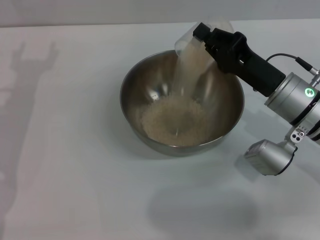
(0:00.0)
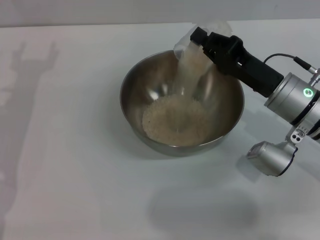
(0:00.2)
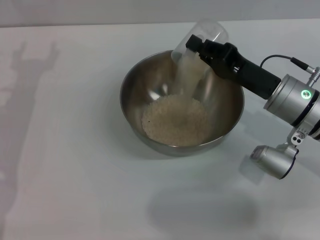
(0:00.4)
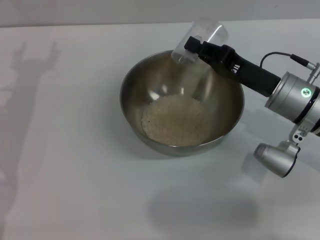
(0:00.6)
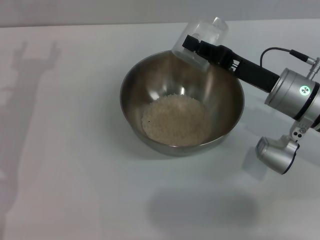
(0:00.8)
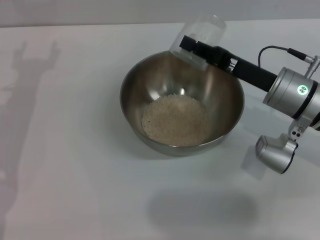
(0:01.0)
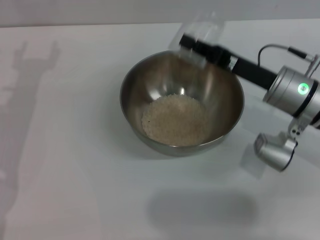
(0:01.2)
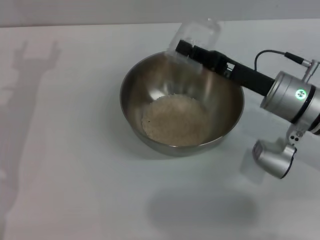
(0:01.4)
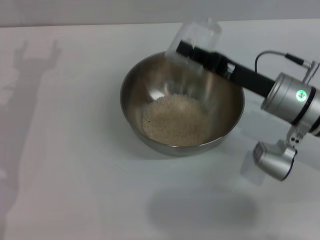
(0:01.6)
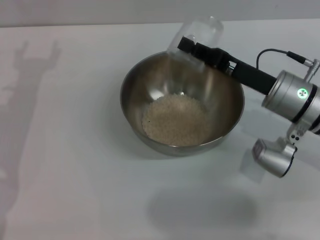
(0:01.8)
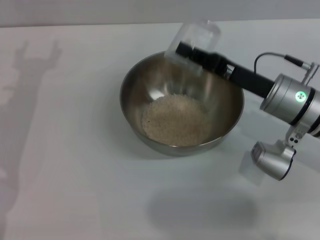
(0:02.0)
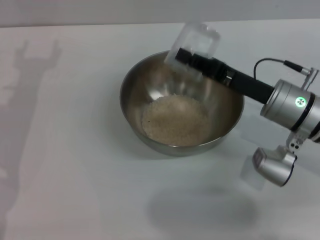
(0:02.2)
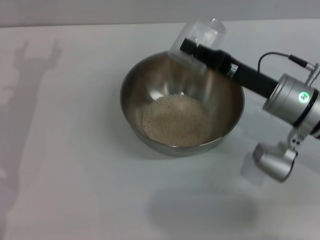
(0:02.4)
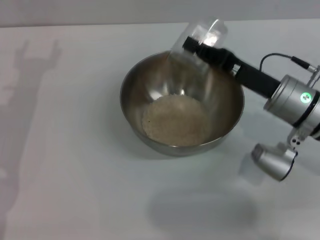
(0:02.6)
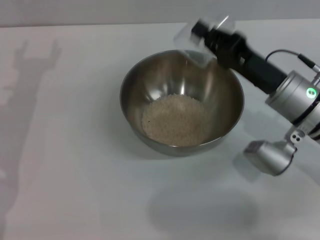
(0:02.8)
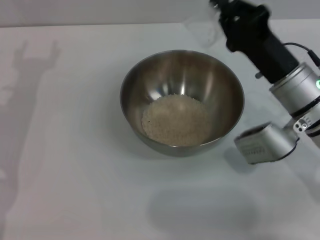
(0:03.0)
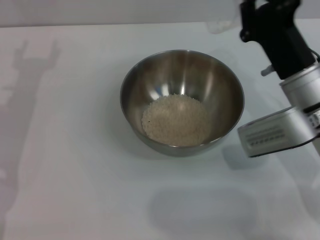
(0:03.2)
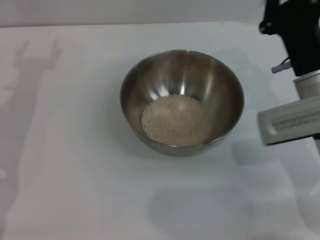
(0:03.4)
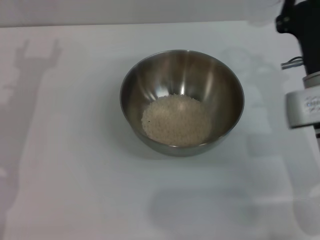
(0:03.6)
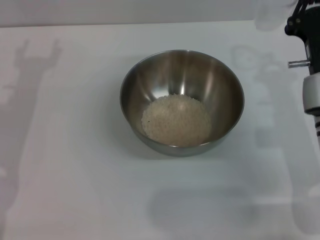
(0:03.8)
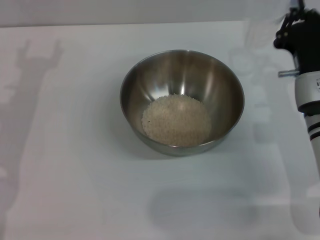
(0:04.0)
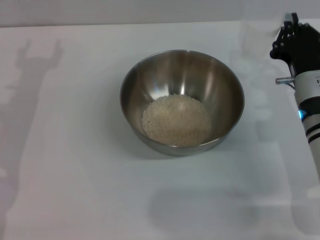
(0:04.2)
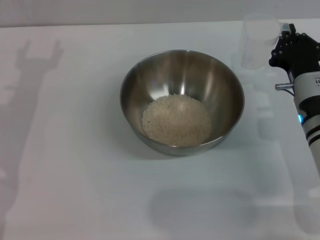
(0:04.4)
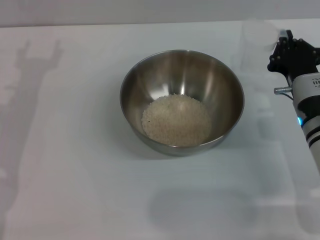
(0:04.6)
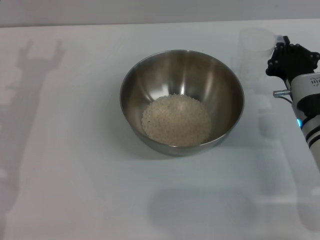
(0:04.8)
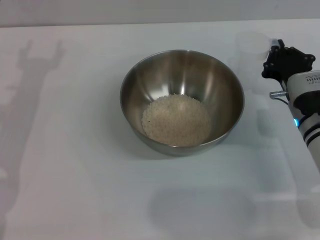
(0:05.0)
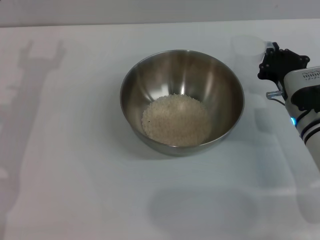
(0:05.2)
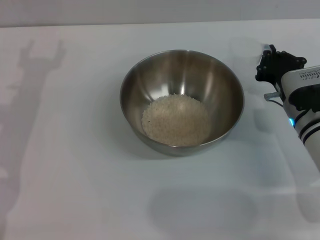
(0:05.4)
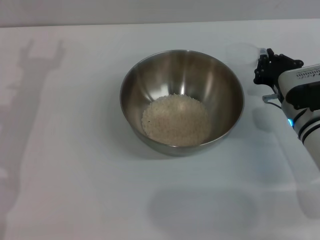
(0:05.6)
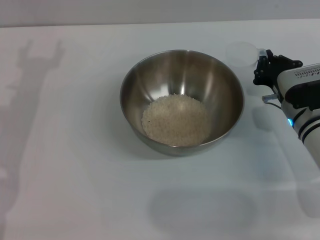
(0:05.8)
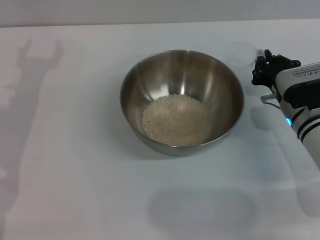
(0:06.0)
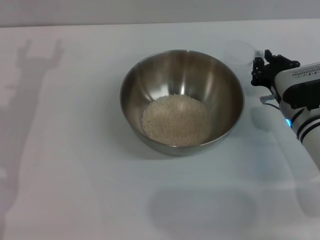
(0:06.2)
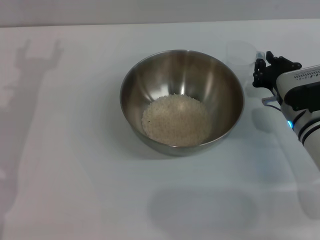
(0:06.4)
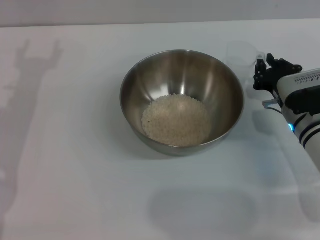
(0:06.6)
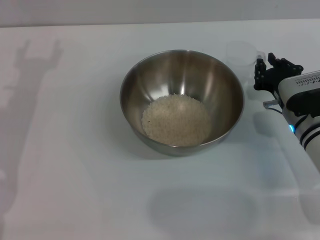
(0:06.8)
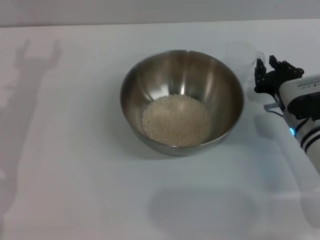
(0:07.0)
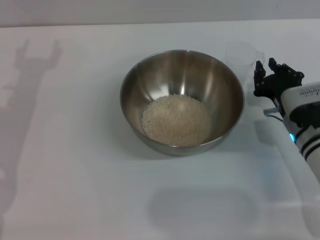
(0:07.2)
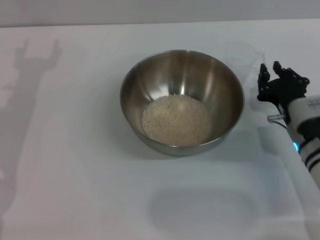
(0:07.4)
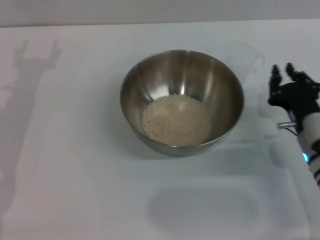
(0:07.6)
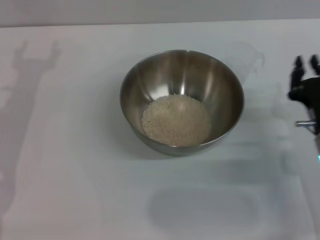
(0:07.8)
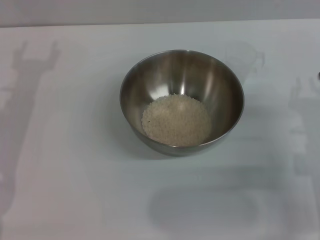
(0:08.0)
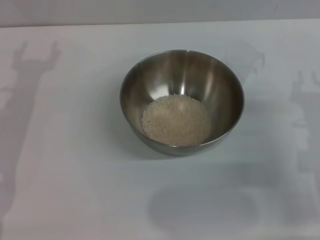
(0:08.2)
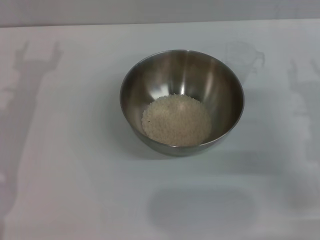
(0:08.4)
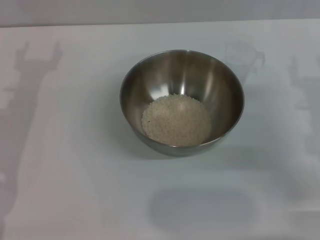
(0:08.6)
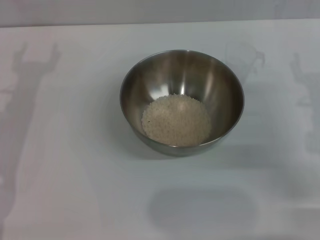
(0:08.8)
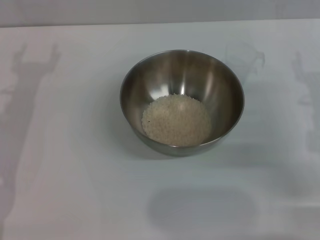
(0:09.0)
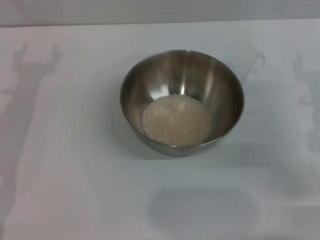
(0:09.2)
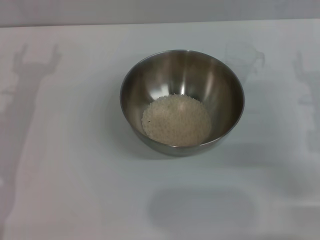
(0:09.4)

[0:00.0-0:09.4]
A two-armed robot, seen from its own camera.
Task of the whole recording: Place the bowl in the middle of the table with one hand and pour the rice from the grain cup into it with the other hand.
Step, 0:00.0 to 0:03.4: Pour the rice from the cup into the bowl with the right gripper.
Step, 0:03.6 to 0:07.6: Place the cup on the table with the right gripper.
0:03.2 to 0:04.8: The right gripper moves downward, some 5 cm.
0:04.8 to 0:06.2: The grippers stay close to where they were, moving slightly.
0:06.2 to 0:07.8: The right gripper heads backward, covering roughly 10 cm.
0:07.8 to 0:09.4: The right gripper heads upward, covering some 5 cm, and opens up.
